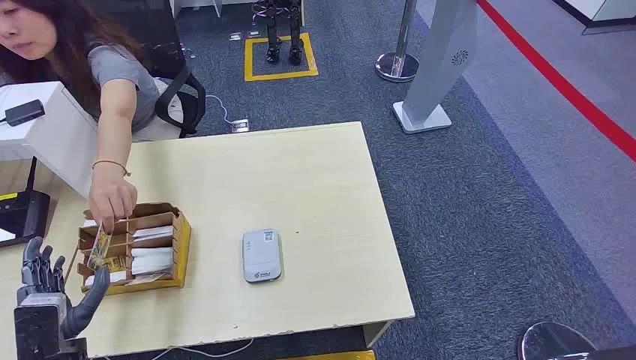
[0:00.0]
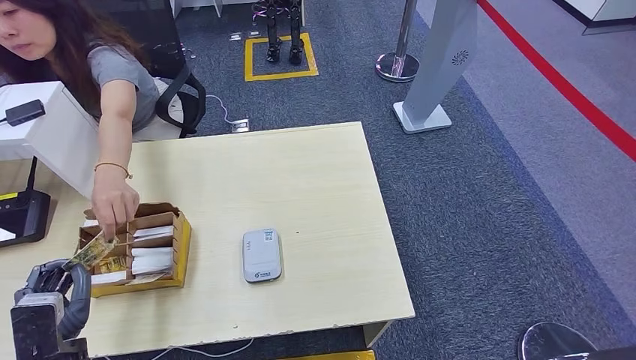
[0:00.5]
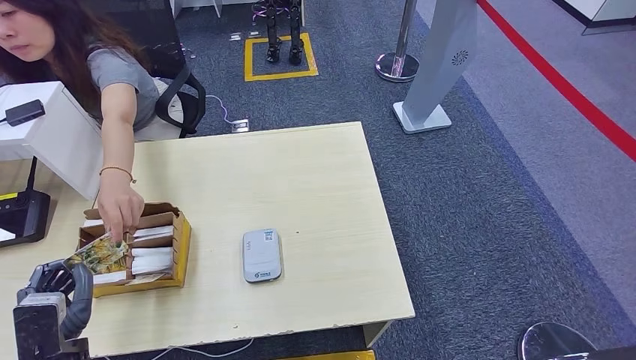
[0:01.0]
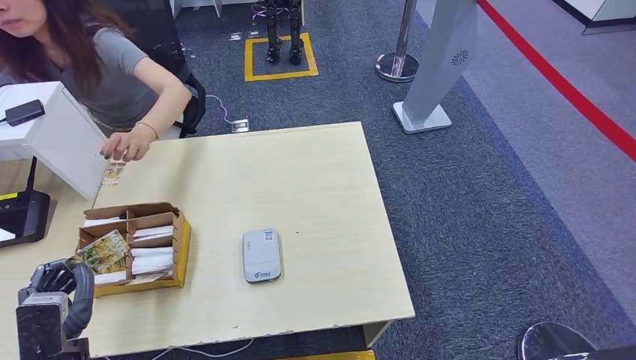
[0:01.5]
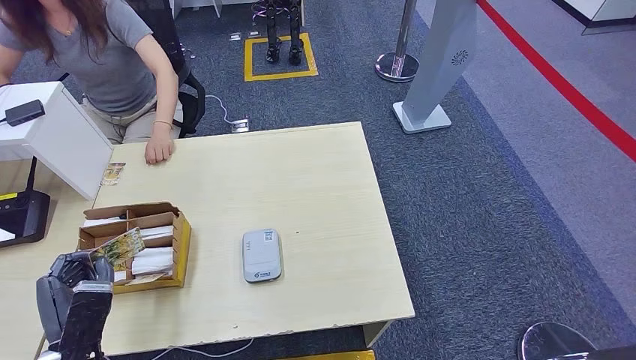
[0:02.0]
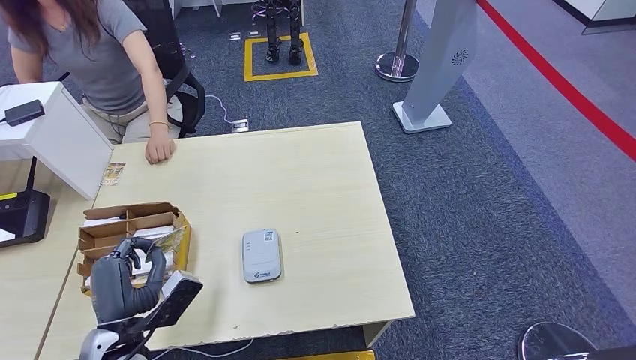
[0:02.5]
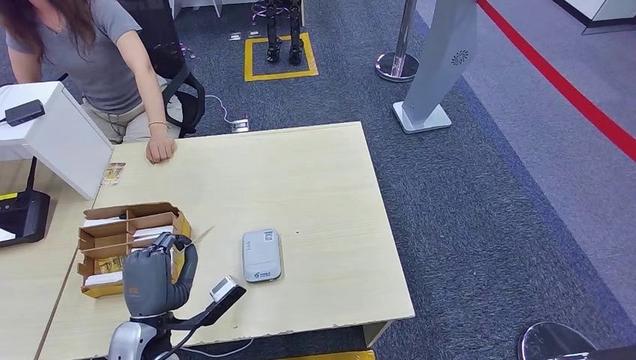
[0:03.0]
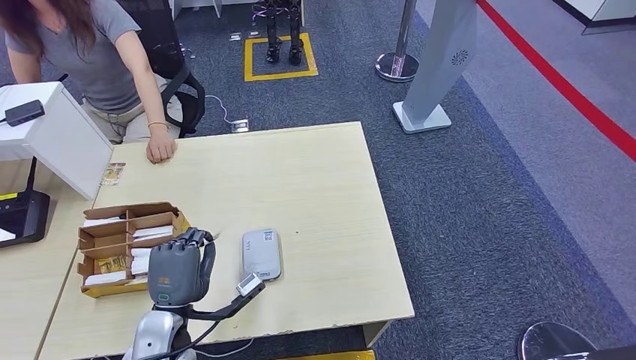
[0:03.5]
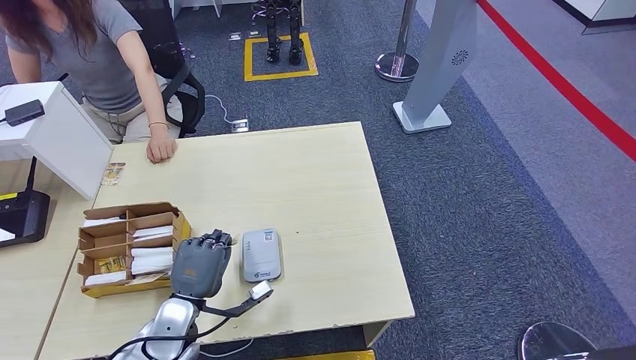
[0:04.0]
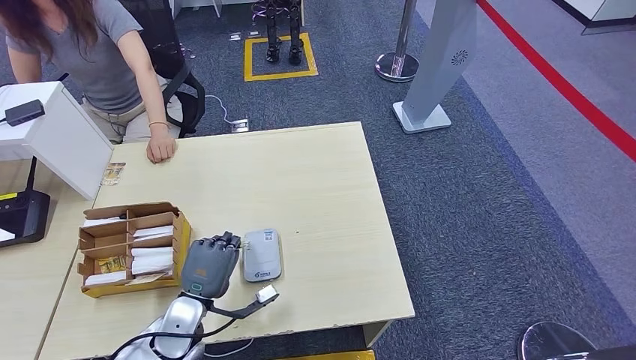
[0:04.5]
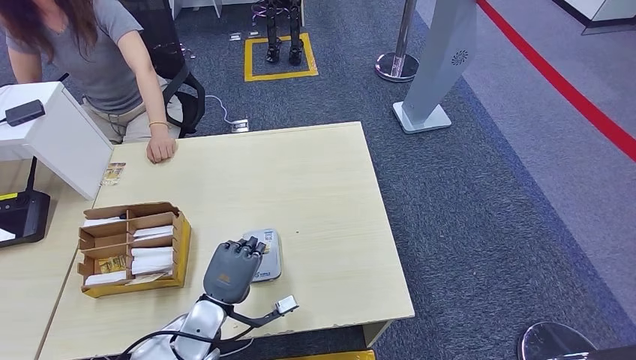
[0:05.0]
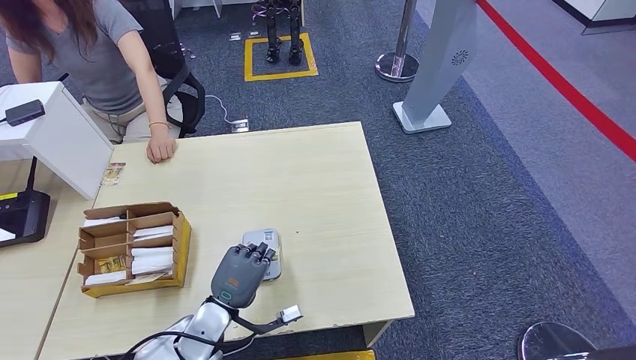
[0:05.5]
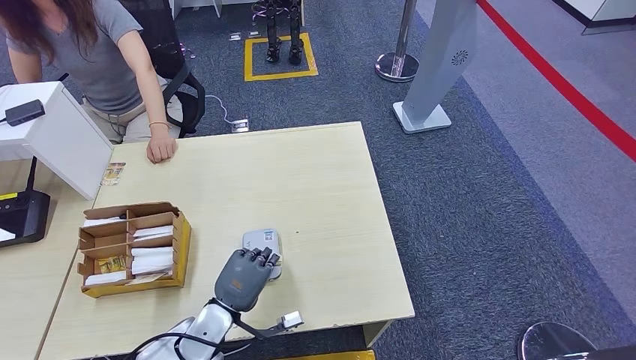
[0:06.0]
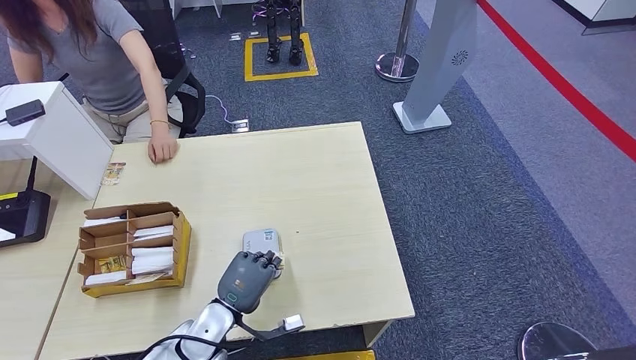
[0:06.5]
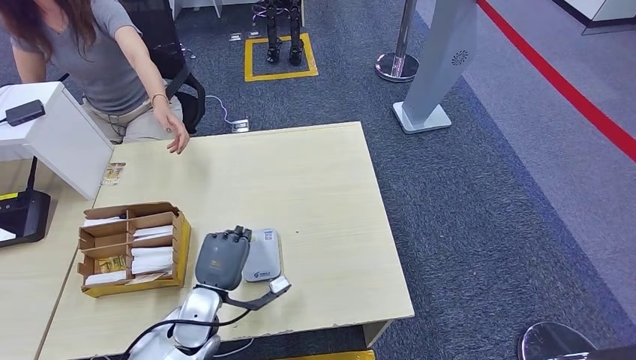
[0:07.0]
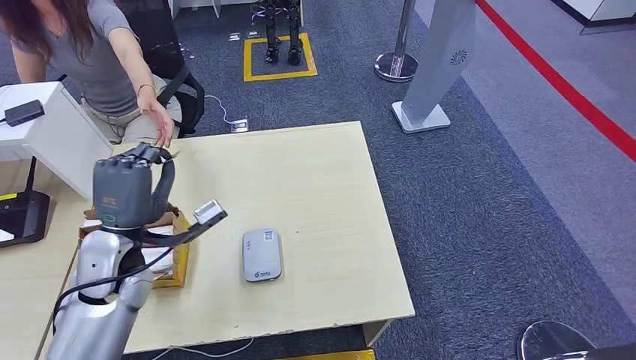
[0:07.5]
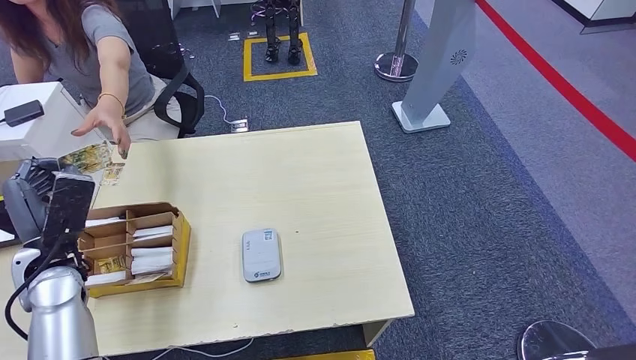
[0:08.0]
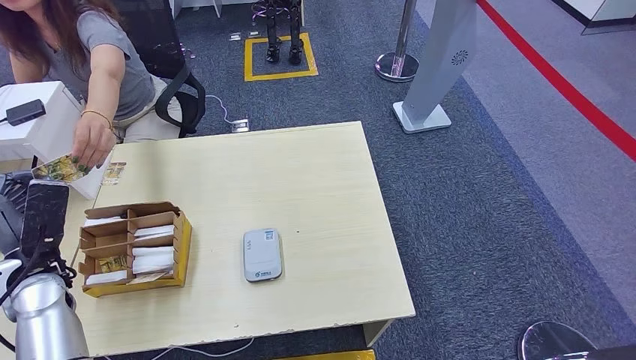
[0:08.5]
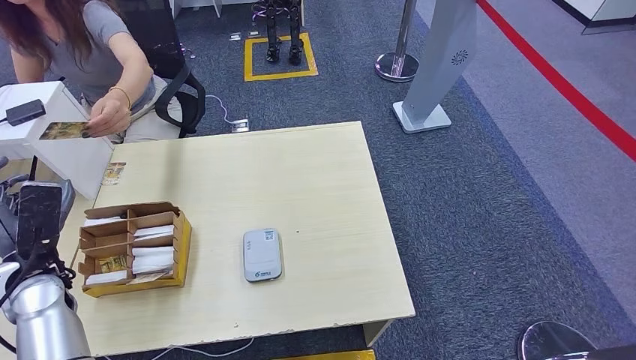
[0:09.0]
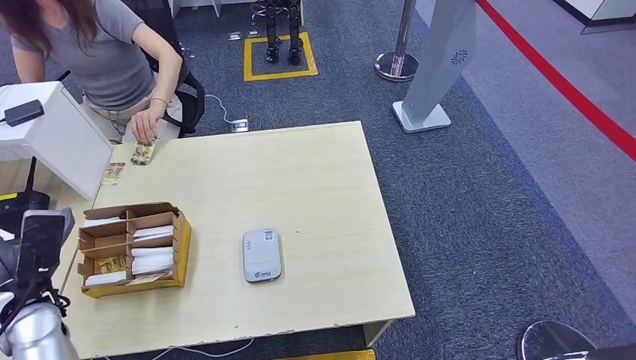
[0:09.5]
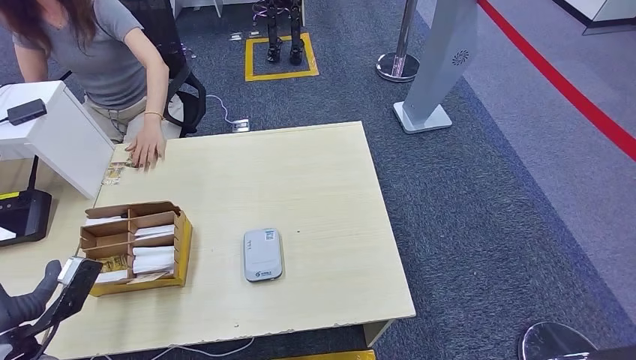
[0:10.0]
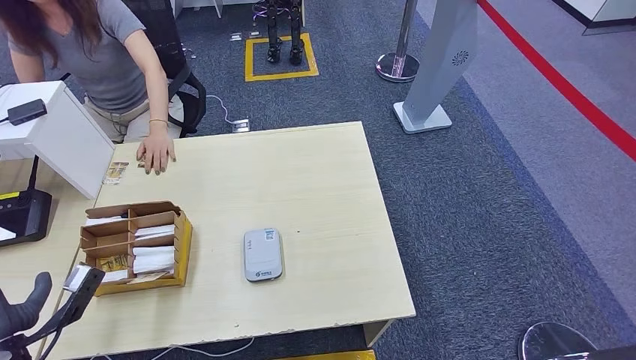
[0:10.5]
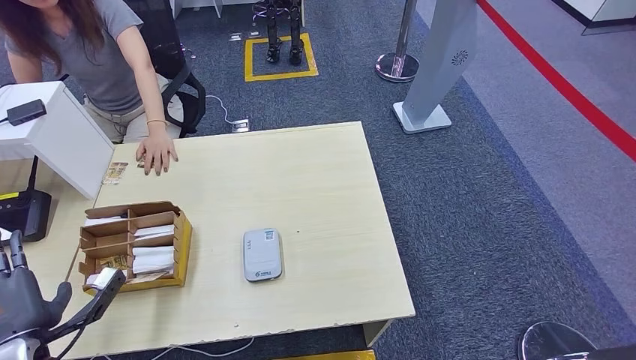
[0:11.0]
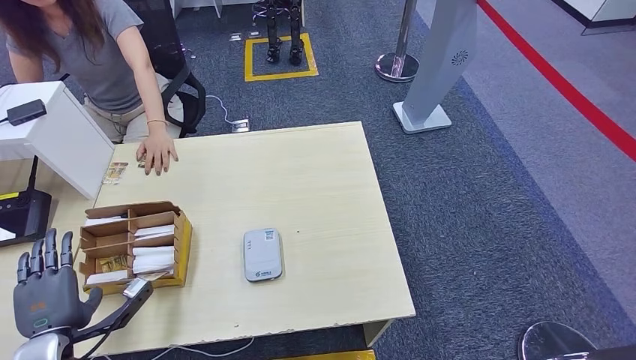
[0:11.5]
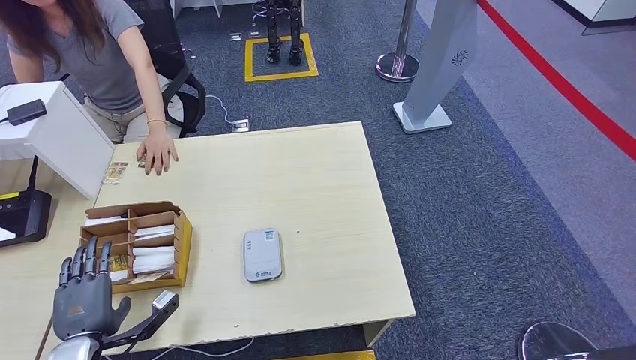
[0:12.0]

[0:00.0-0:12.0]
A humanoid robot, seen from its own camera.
Step, 0:00.0 to 0:01.0: Take the ID card from the person's hand.
Step, 0:02.0 to 0:06.0: Place the ID card on the card reader.
Step, 0:07.5 to 0:08.5: Hand the ID card to the person.
0:02.0 to 0:04.0: The left hand shifts approximately 15 cm to the right and forward.
0:04.0 to 0:06.0: The left hand shifts by about 5 cm.
0:06.0 to 0:08.0: The left hand travels to the left and upward by about 25 cm.
0:08.0 to 0:10.0: The left hand travels backward and downward by some 15 cm.
0:10.0 to 0:12.0: The left hand travels to the right and downward by about 10 cm.

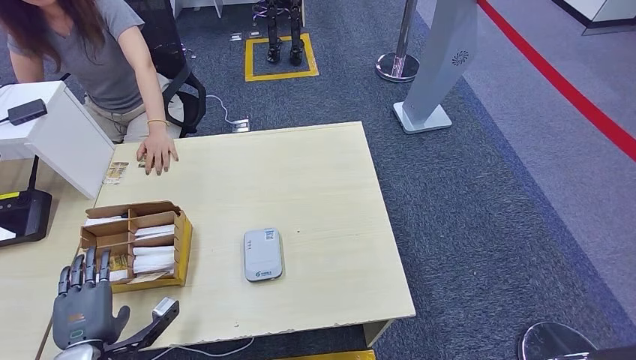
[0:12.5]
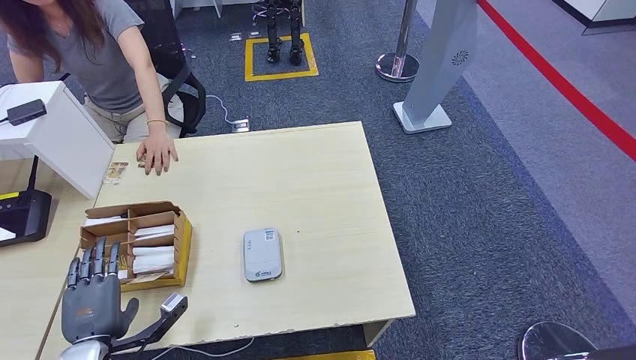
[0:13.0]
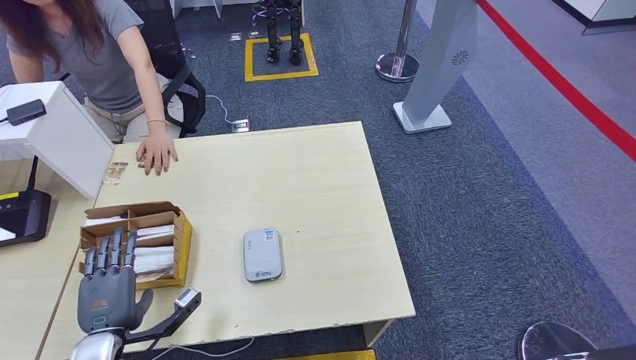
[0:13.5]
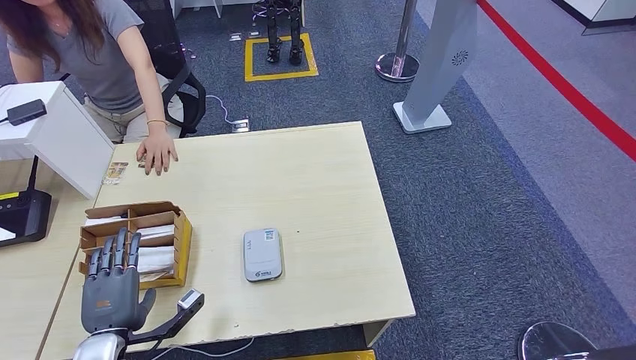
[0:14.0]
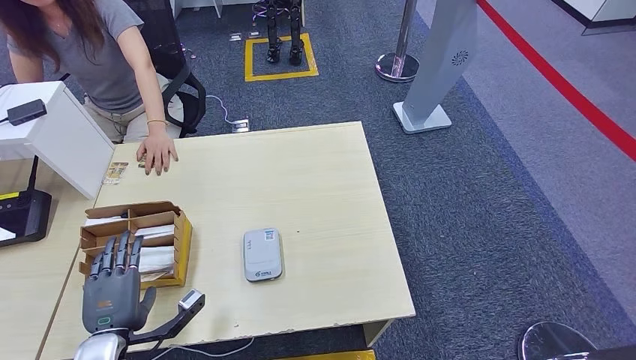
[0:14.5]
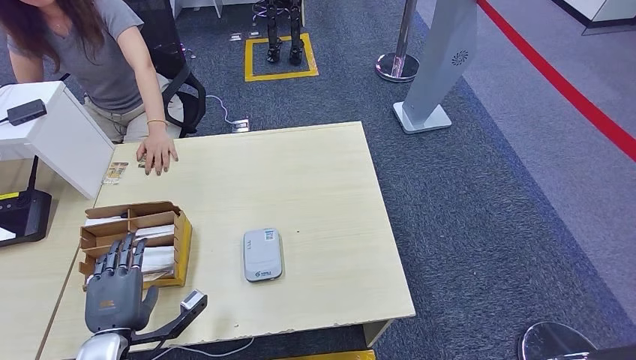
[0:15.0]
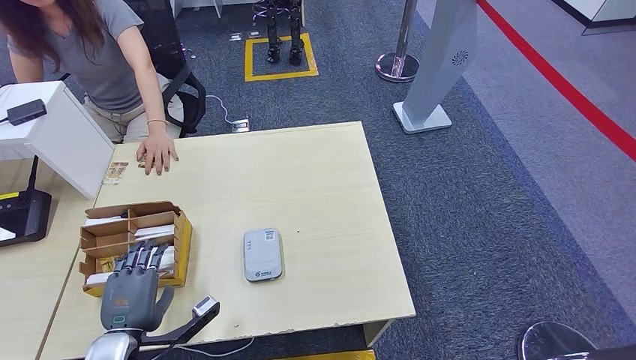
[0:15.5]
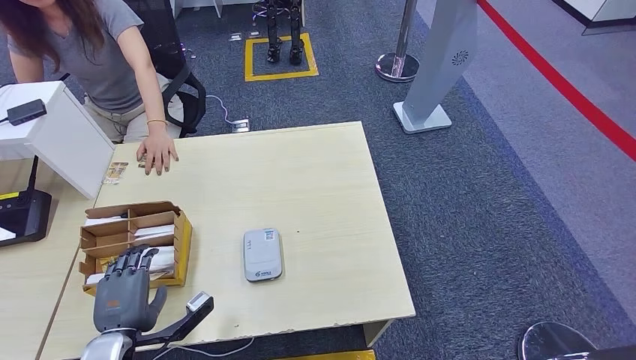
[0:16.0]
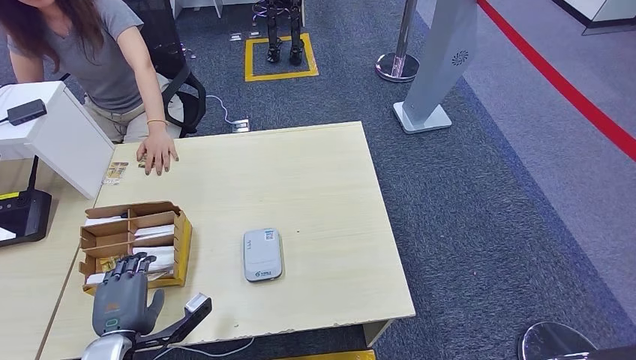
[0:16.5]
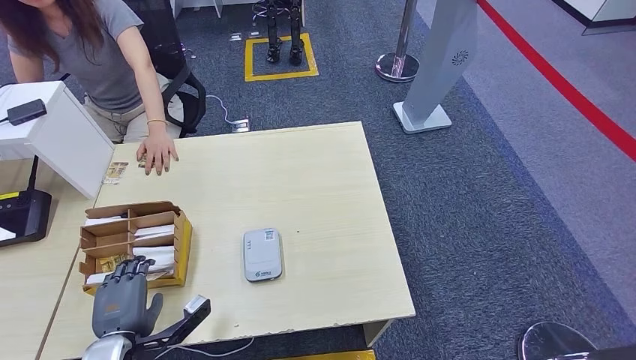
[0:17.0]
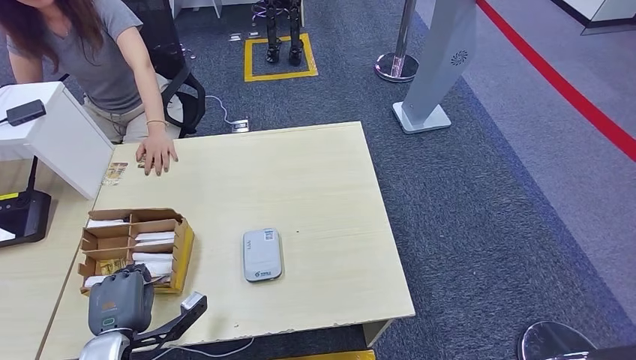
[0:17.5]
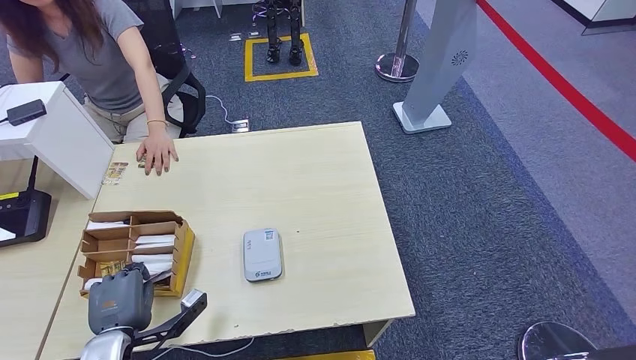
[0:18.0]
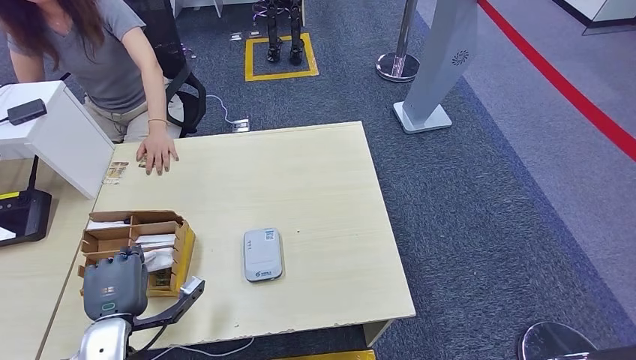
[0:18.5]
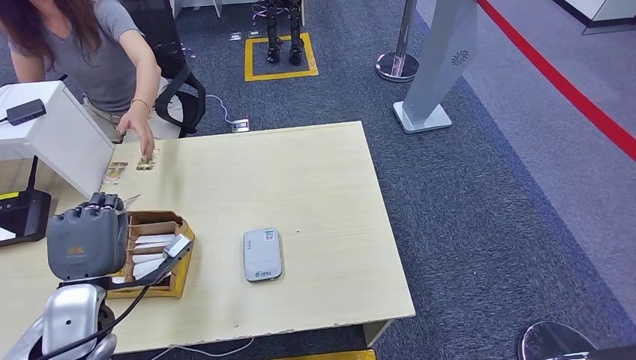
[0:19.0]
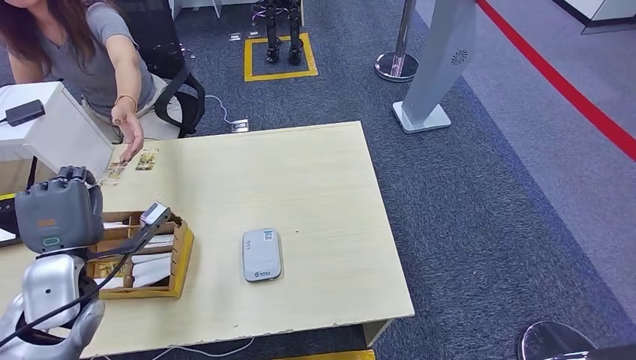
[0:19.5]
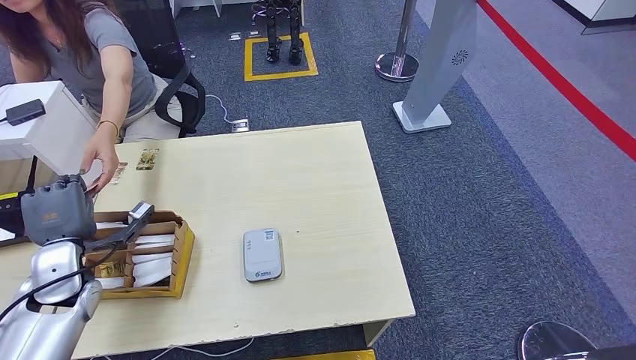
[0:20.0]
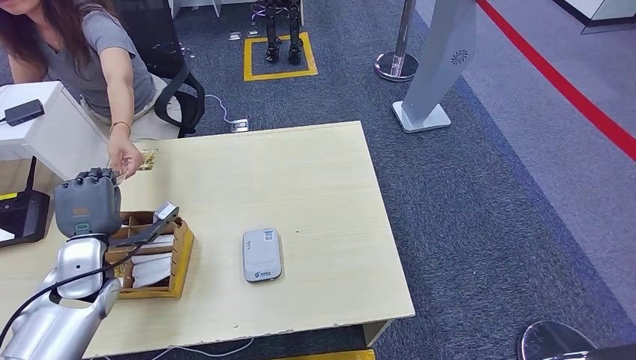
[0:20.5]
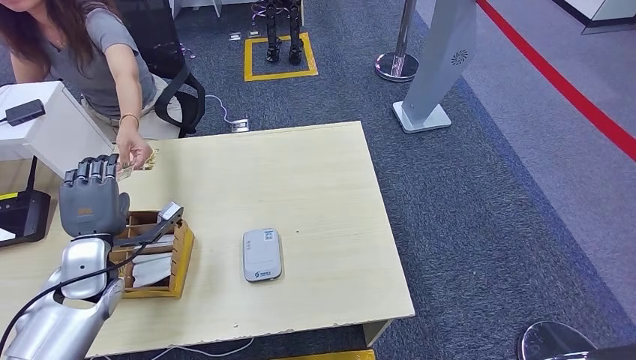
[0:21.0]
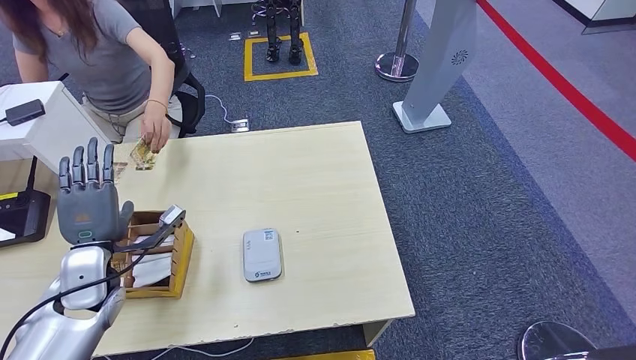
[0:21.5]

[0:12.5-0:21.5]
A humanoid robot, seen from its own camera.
Step, 0:18.0 to 0:19.0: Pick up the room key from the key card box.
Step, 0:19.5 to 0:21.5: Hand the room key to the person.
0:12.5 to 0:17.0: The hands move only a little.
0:17.0 to 0:19.5: The left hand heads upward and forward, covering some 15 cm.
0:19.5 to 0:21.5: The left hand moves downward, some 5 cm.
